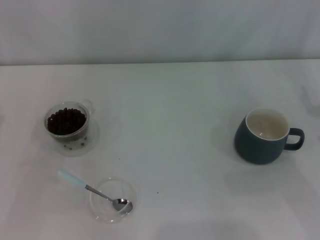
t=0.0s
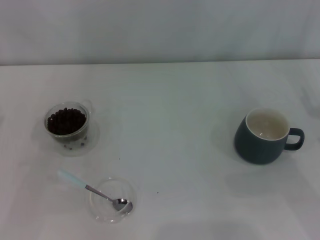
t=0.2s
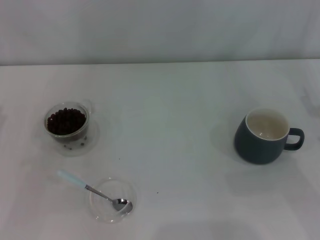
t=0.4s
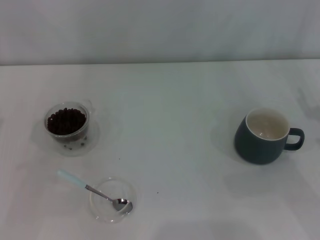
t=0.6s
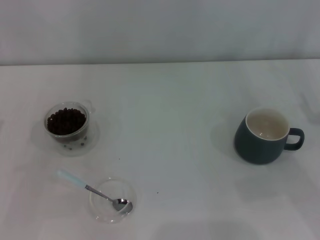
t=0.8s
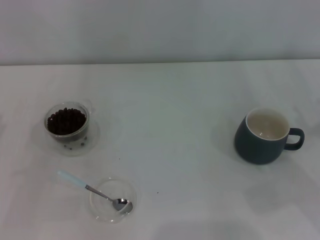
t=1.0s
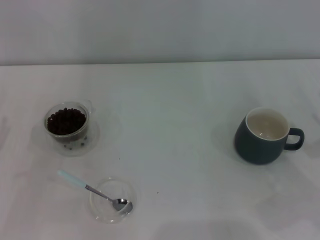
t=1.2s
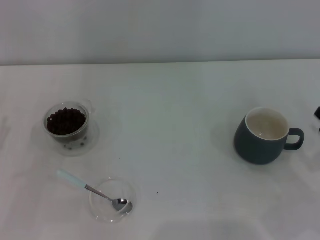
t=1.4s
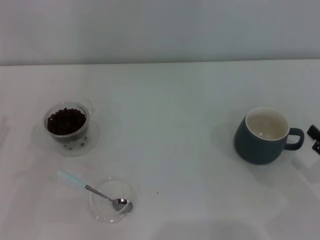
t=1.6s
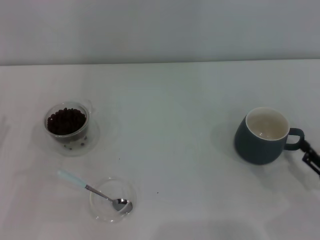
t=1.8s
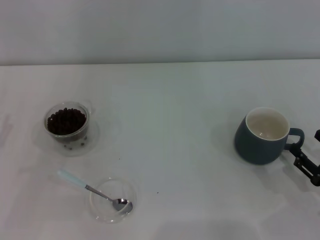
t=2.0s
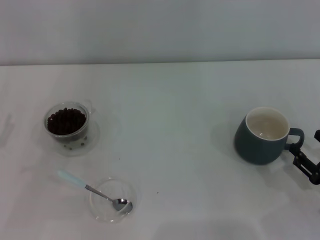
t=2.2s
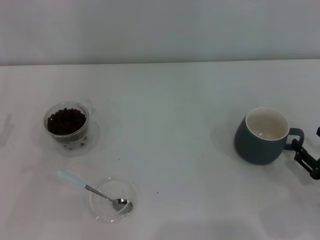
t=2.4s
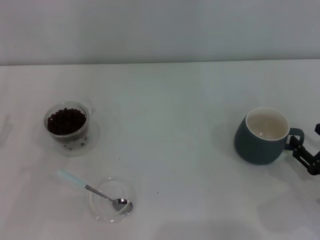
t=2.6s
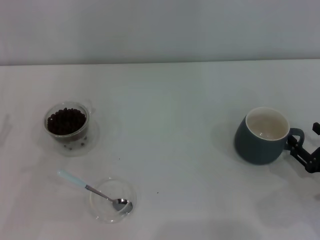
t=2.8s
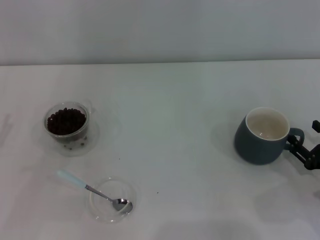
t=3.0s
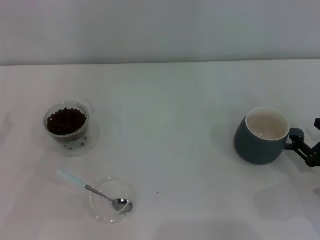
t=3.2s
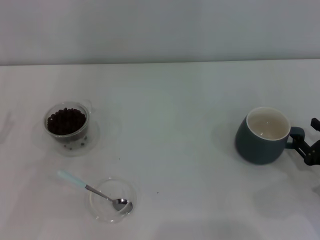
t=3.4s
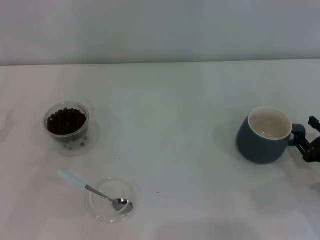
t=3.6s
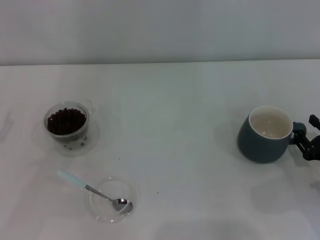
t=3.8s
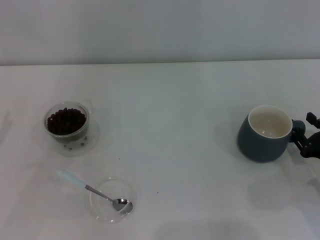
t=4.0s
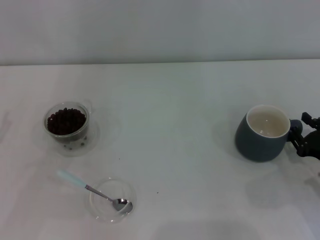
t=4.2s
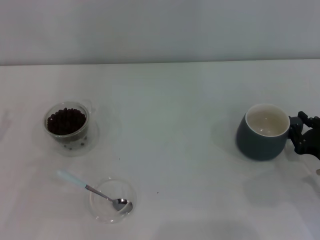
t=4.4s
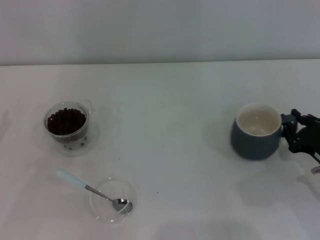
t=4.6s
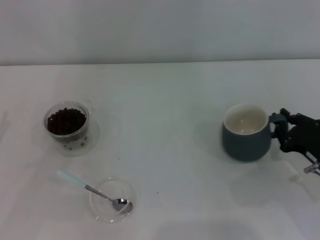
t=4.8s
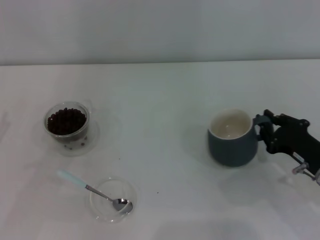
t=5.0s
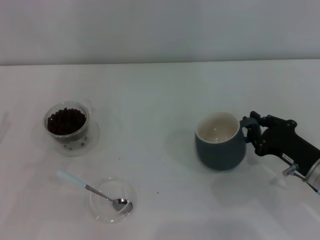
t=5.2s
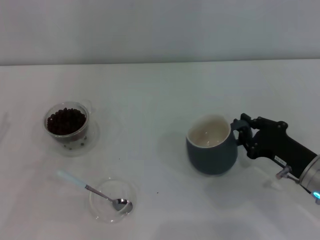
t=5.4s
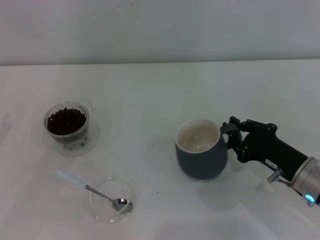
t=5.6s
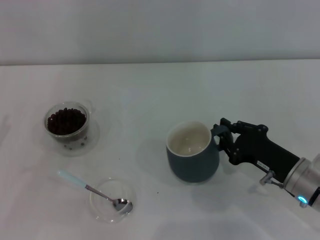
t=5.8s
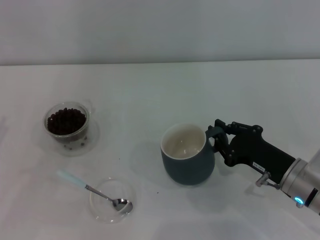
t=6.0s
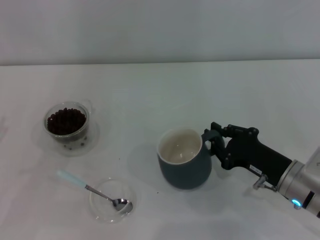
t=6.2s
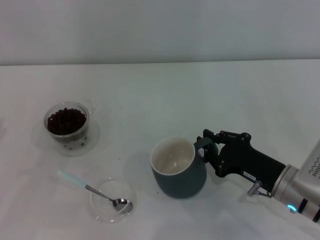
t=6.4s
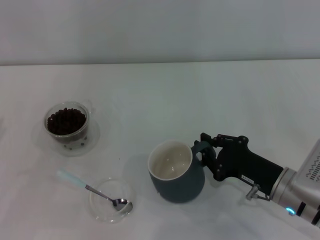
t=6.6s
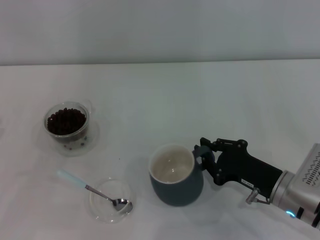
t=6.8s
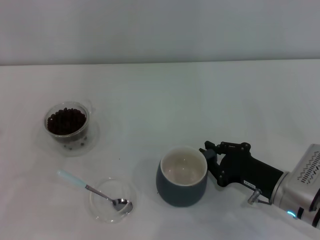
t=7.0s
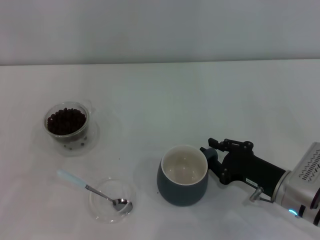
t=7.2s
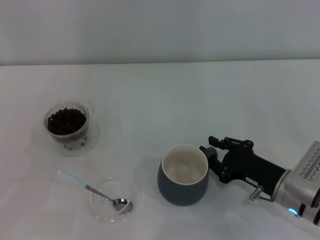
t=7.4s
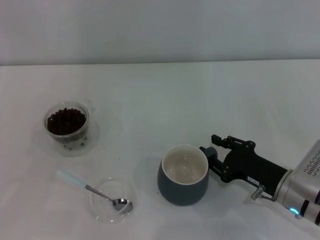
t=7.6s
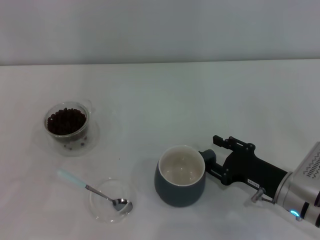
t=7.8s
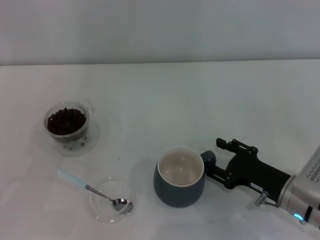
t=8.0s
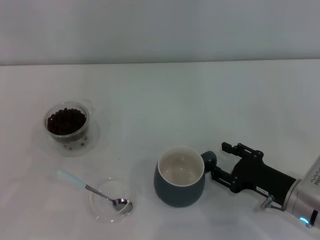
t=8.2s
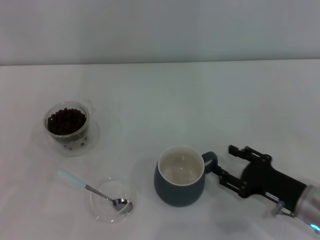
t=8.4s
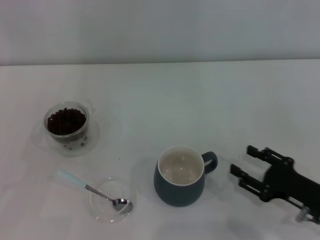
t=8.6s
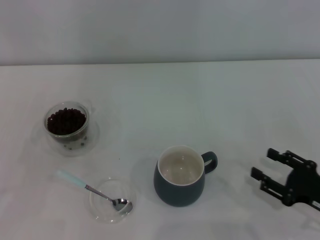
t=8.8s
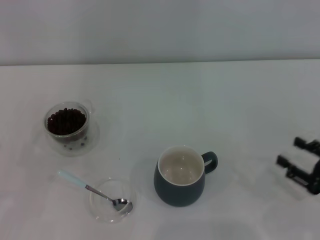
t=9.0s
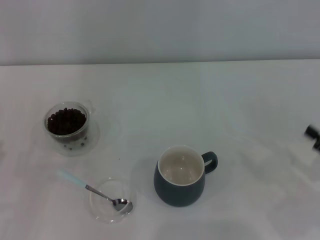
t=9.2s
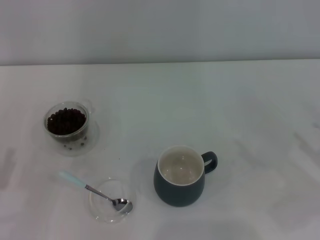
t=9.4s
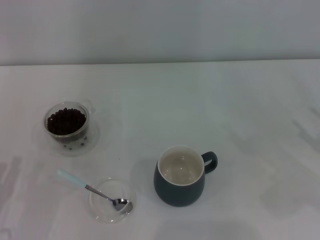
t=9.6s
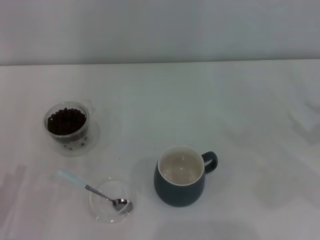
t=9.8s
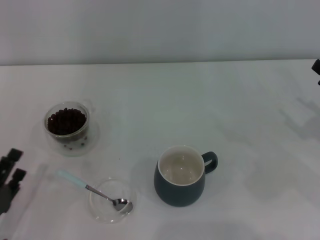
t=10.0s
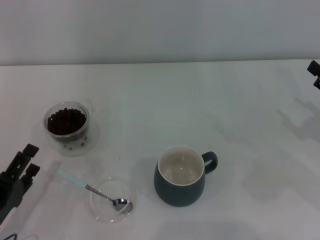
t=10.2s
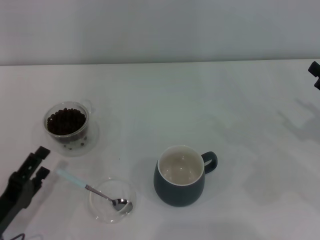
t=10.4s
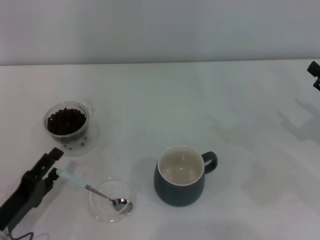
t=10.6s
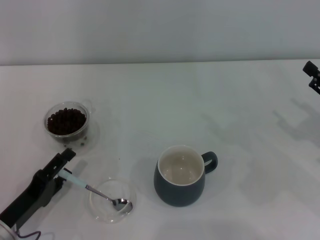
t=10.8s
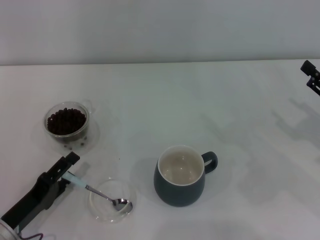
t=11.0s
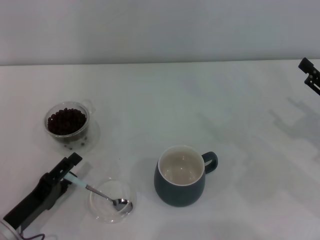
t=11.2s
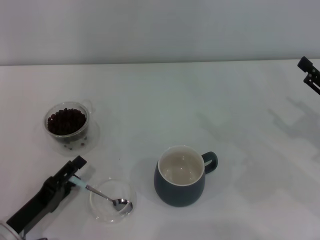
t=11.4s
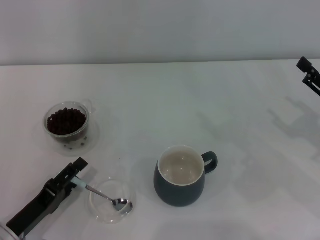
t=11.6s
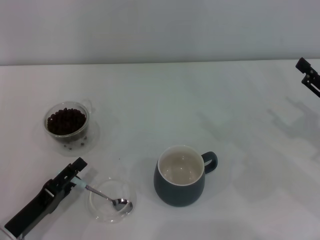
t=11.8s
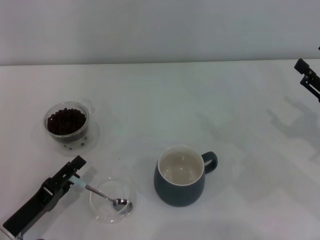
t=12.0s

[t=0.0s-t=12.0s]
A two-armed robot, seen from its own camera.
Task of the whole recording: Use a blue spoon to take out the coffee beans from the glass and pour them into the gray cup.
Step, t=0.0s to t=8.4s: Move the cup to the center of view with the left gripper.
t=1.6s to t=3.0s: The right gripper ends up about 5 cm from where it was.
t=3.0s to t=4.4s: The right gripper closes its fingers.
t=4.4s to t=6.0s: The right gripper goes roughly 10 cm to the left.
t=6.0s to t=7.6s: There are only small adjustments of the grippers.
t=7.6s to t=9.0s: The right gripper heads to the right and backward, covering approximately 15 cm, and opens its fingers.
t=9.0s to t=10.4s: The right gripper moves forward and upward, about 10 cm. Meanwhile the left gripper moves to the right and downward, some 10 cm.
t=10.4s to t=12.0s: The grippers move only a little.

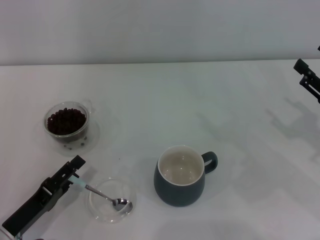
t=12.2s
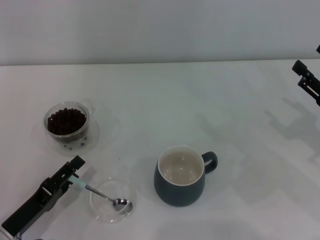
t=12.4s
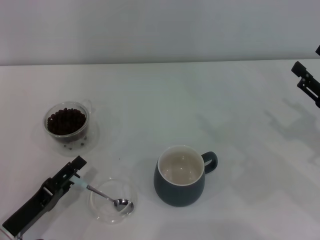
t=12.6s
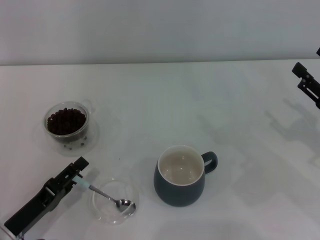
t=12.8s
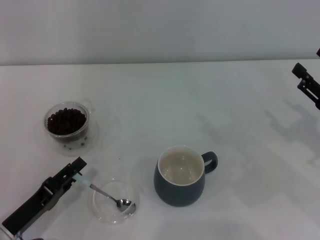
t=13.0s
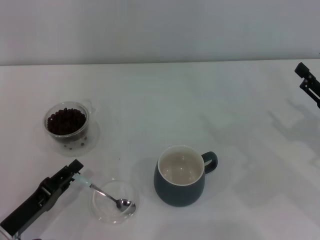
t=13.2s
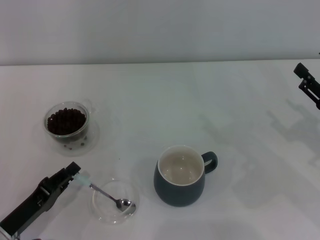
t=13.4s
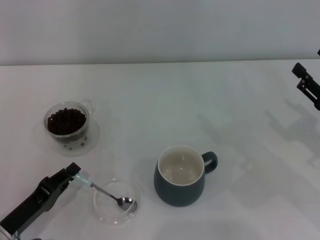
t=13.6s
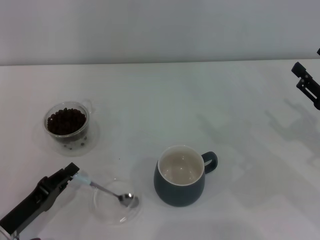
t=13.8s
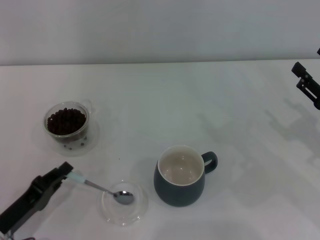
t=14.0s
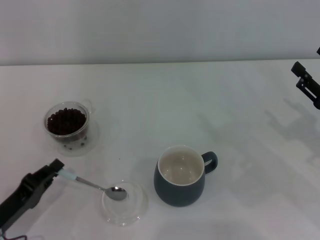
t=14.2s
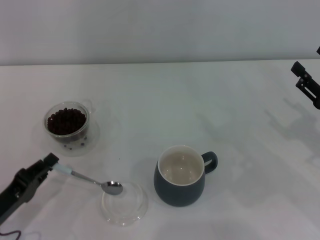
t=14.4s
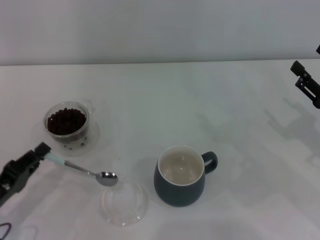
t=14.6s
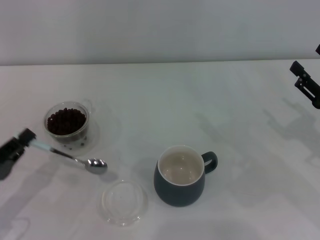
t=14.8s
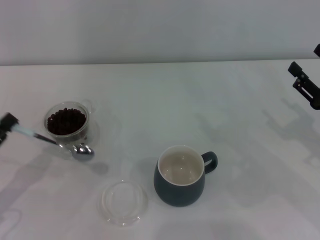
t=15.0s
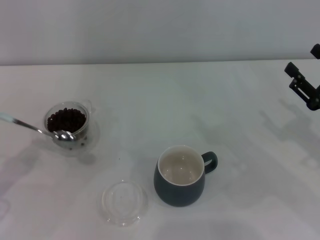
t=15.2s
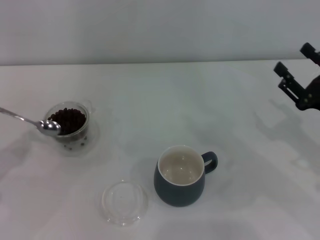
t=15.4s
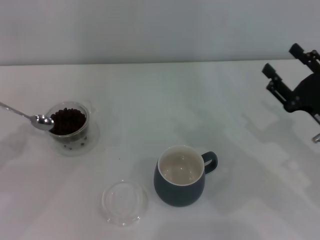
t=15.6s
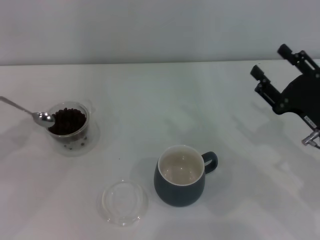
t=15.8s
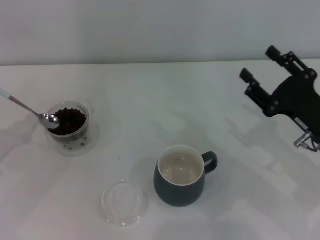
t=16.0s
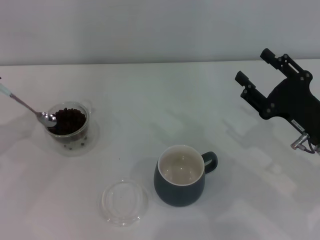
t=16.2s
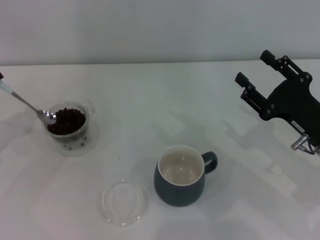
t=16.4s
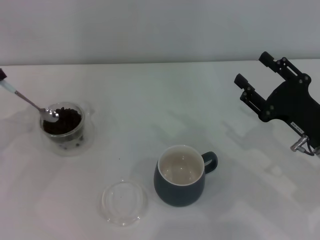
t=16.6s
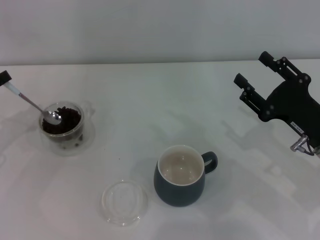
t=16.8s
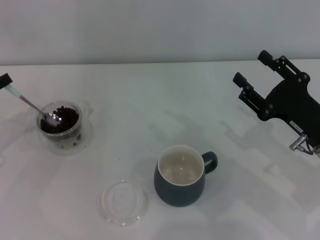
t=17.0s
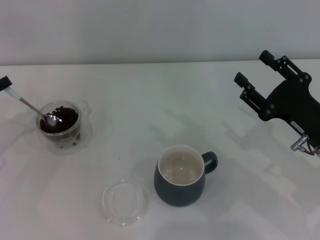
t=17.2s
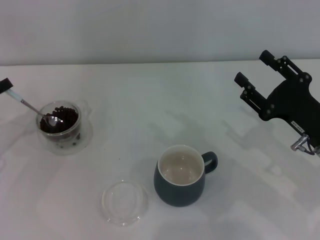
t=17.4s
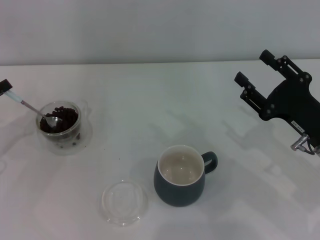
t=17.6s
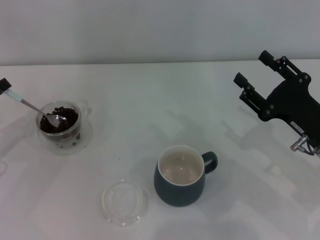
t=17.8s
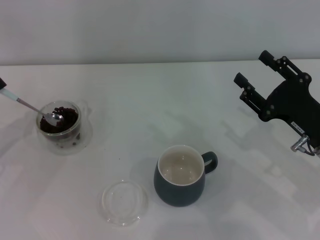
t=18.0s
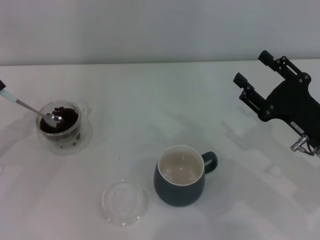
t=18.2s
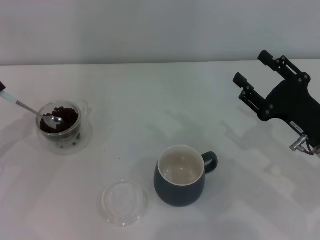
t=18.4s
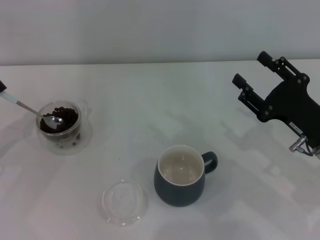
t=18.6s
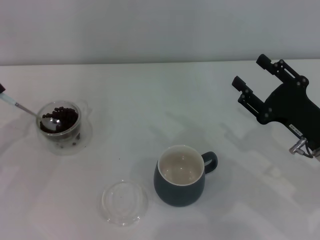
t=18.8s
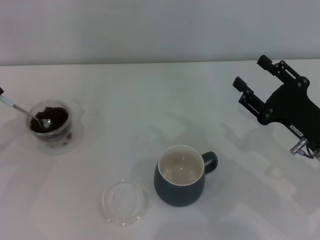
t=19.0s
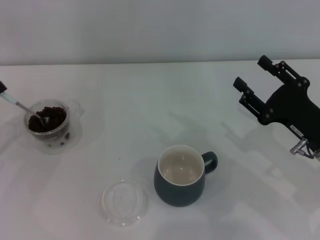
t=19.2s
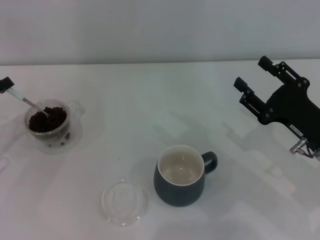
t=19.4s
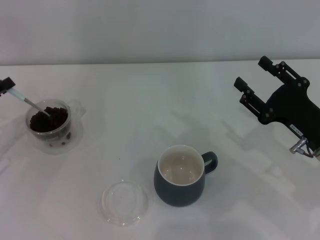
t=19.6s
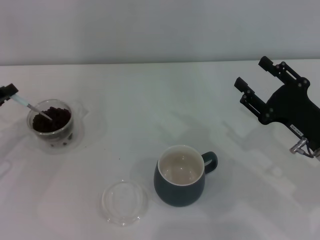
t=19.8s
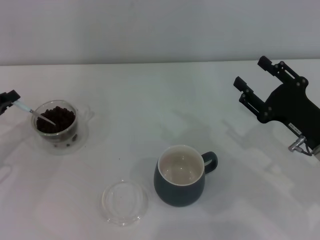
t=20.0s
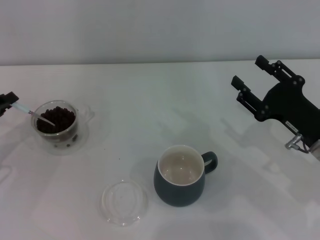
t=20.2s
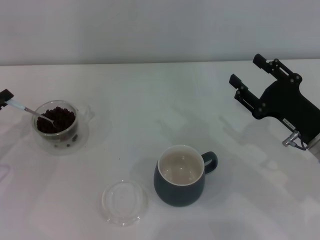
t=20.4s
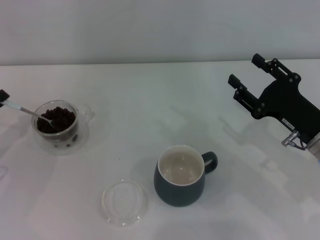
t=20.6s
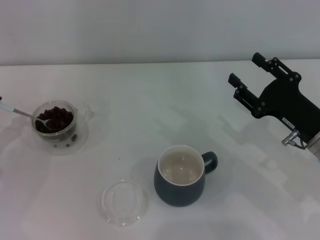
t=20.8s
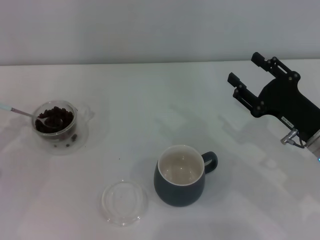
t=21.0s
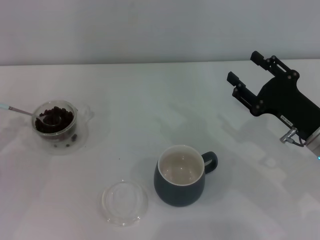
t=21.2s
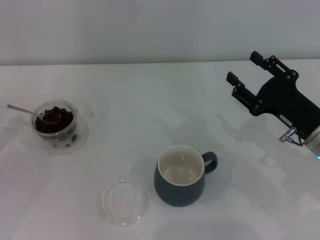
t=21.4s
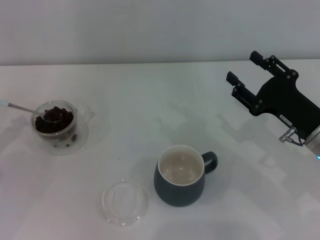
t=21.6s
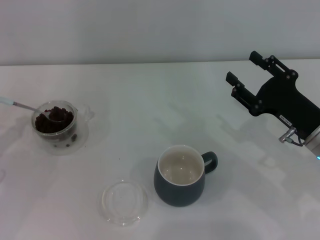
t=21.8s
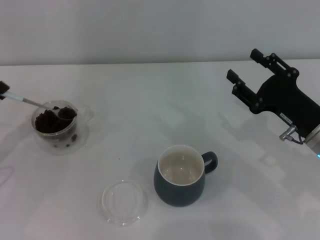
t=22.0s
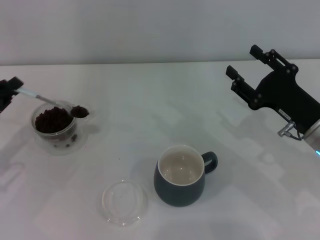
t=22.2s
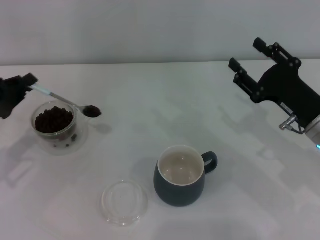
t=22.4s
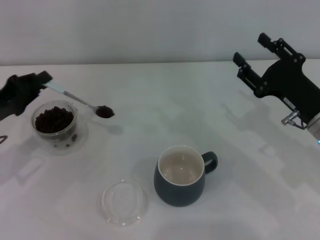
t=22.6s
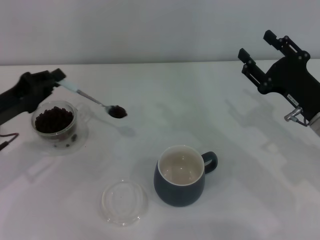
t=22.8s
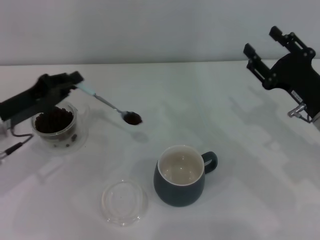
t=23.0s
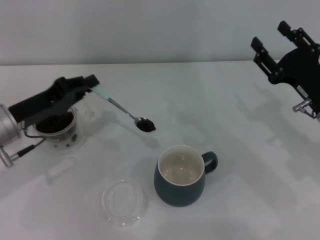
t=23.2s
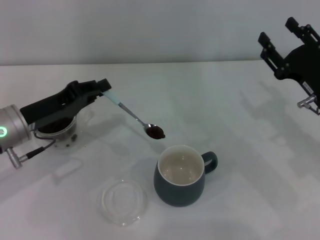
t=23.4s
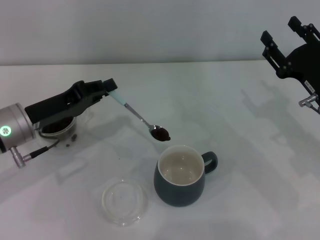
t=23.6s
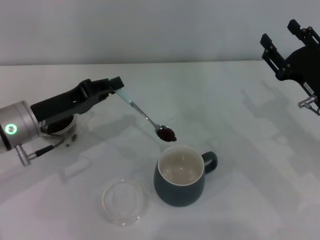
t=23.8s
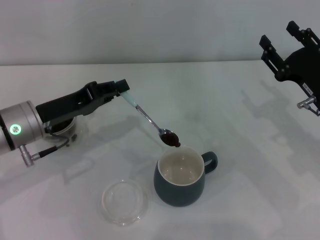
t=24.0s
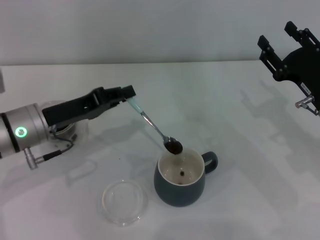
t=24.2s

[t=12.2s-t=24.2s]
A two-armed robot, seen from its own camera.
Task of the whole recording: Use a blue spoon to take out the coffee beans from the glass and pour them into the gray cup.
Step, t=12.2s to t=14.4s: Pick up the spoon with the right gripper.
t=12.2s to t=13.8s: The left gripper closes.
t=13.8s to t=15.2s: The left gripper moves to the left and upward, roughly 10 cm.
t=15.2s to t=16.6s: The right gripper heads to the left, covering roughly 5 cm; the left gripper shifts roughly 10 cm forward.
t=16.6s to t=19.8s: There are only small adjustments of the grippers.
t=19.8s to t=21.2s: The grippers make only small movements.
t=21.2s to t=22.6s: The left gripper heads to the right, covering roughly 5 cm.
t=22.6s to t=24.2s: The left gripper moves to the right, roughly 10 cm.
